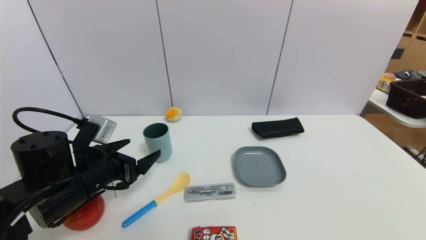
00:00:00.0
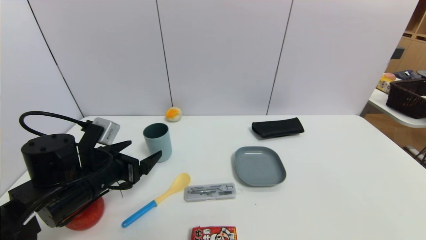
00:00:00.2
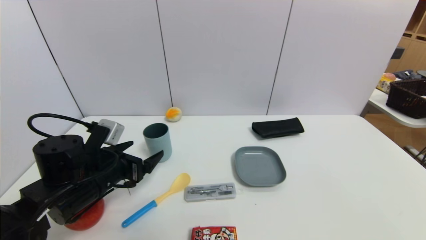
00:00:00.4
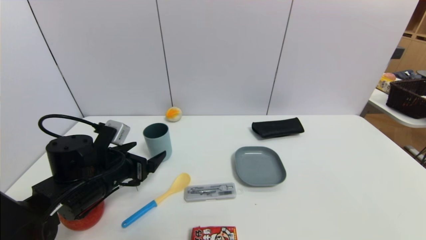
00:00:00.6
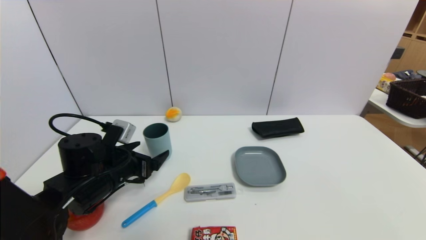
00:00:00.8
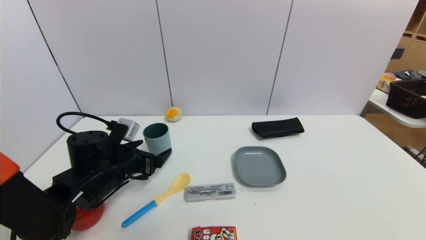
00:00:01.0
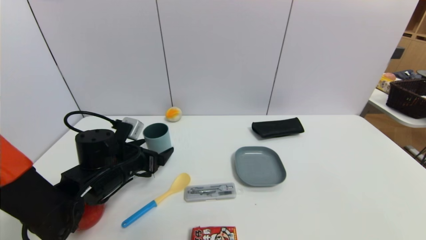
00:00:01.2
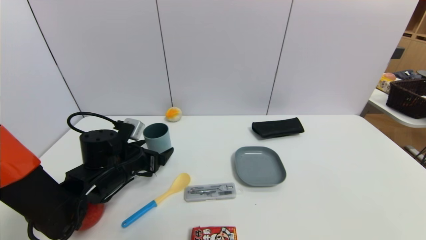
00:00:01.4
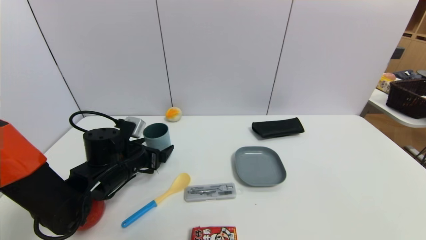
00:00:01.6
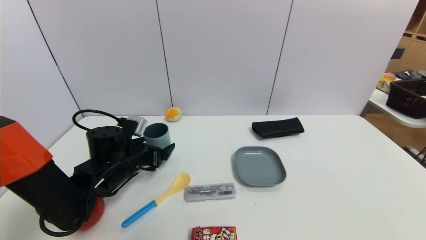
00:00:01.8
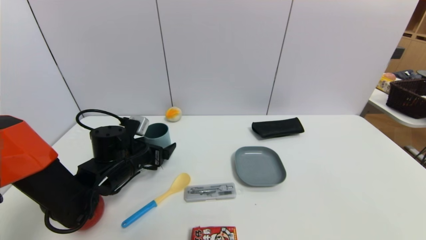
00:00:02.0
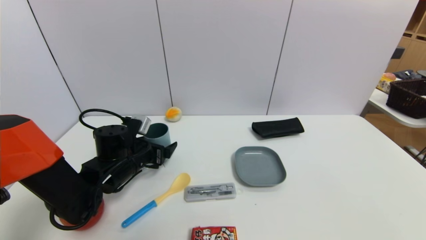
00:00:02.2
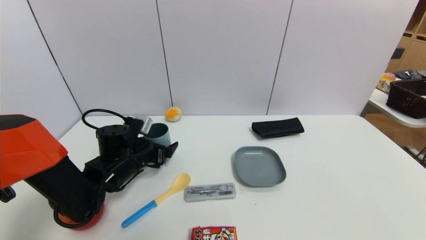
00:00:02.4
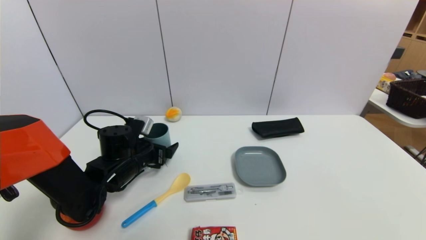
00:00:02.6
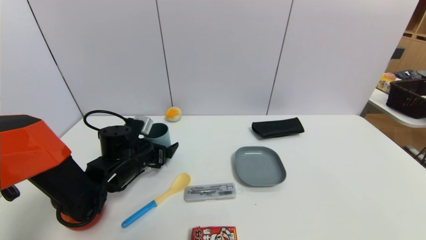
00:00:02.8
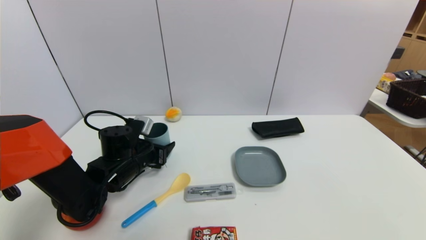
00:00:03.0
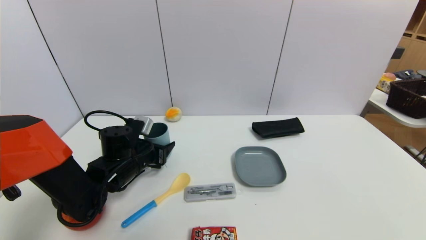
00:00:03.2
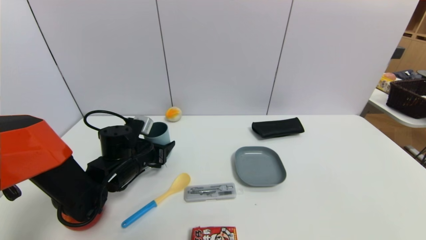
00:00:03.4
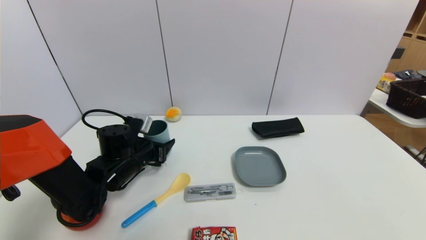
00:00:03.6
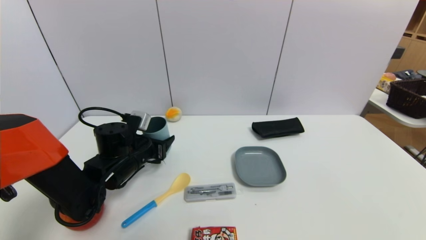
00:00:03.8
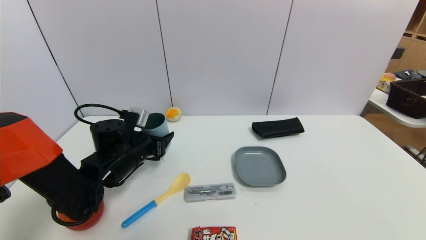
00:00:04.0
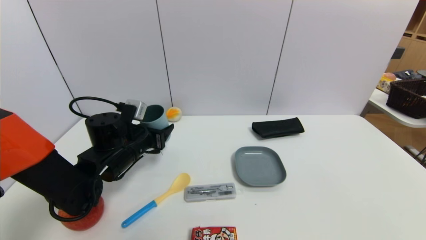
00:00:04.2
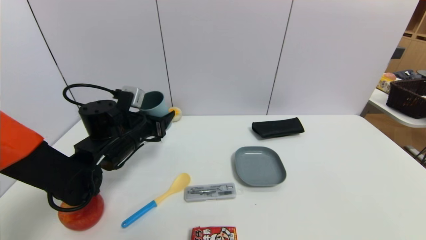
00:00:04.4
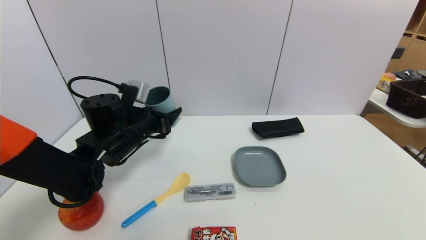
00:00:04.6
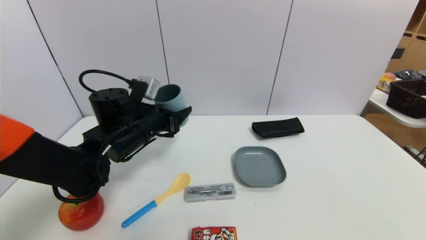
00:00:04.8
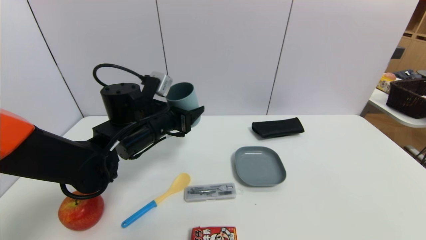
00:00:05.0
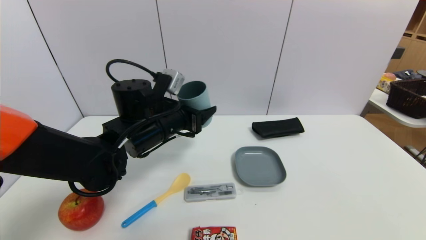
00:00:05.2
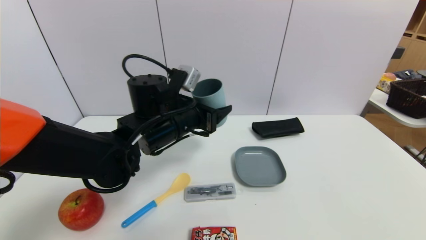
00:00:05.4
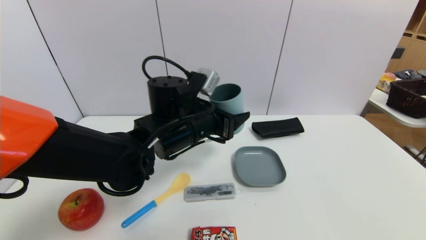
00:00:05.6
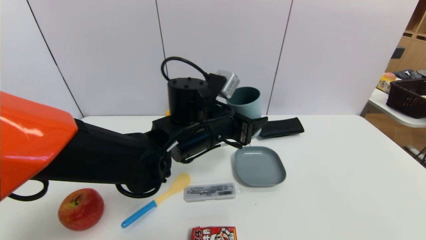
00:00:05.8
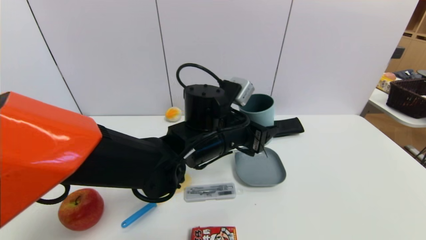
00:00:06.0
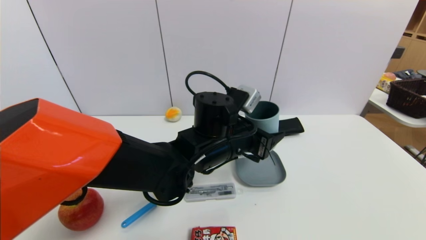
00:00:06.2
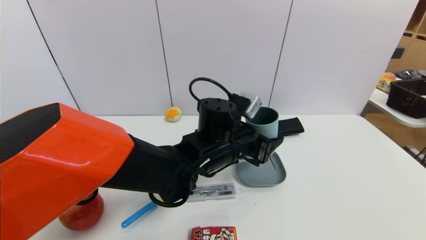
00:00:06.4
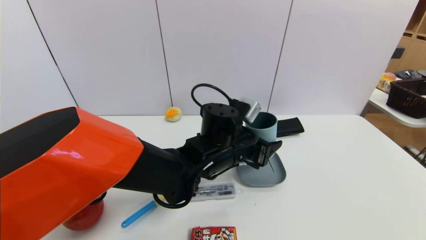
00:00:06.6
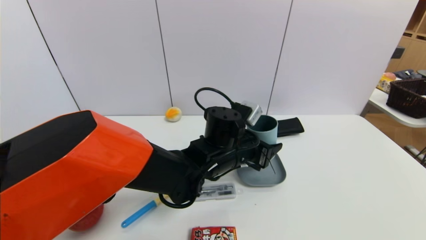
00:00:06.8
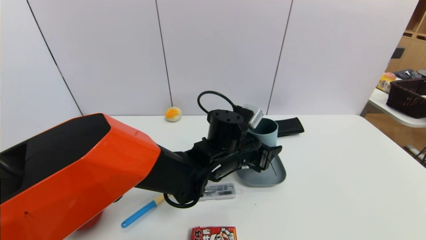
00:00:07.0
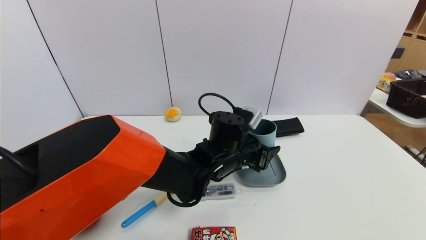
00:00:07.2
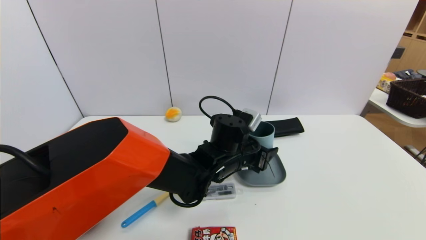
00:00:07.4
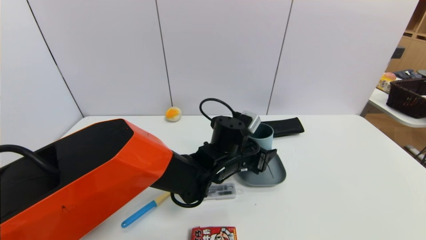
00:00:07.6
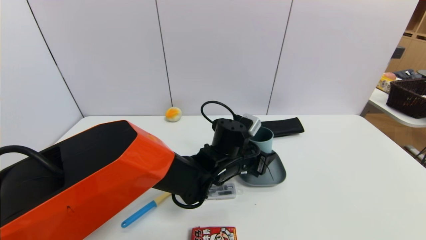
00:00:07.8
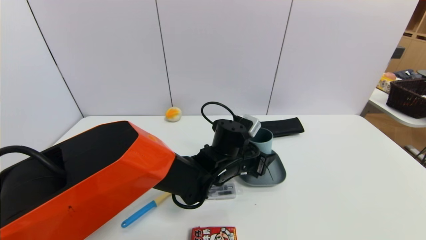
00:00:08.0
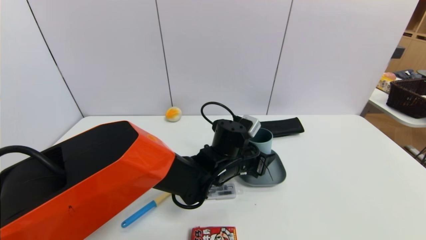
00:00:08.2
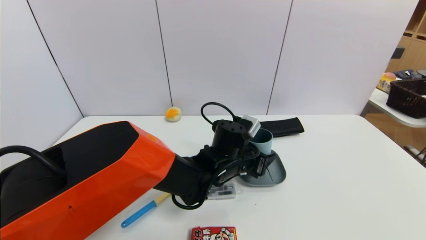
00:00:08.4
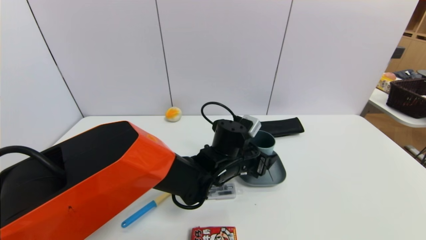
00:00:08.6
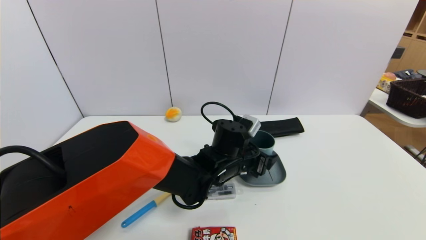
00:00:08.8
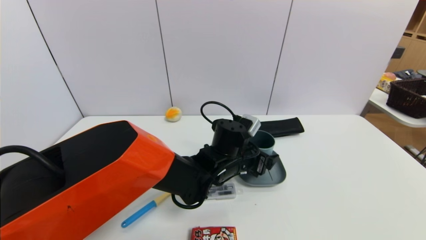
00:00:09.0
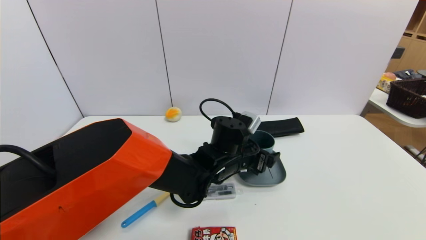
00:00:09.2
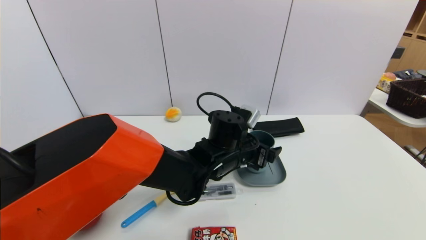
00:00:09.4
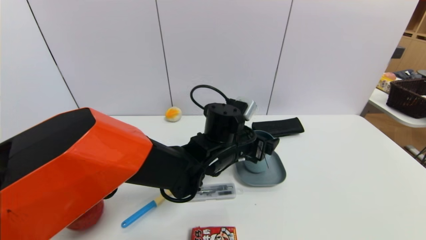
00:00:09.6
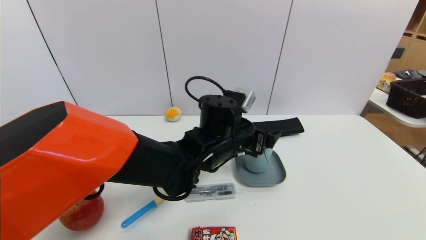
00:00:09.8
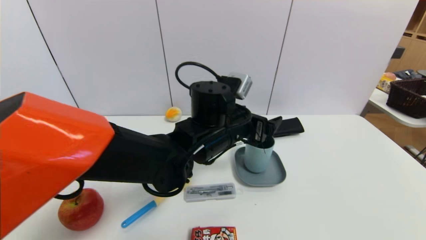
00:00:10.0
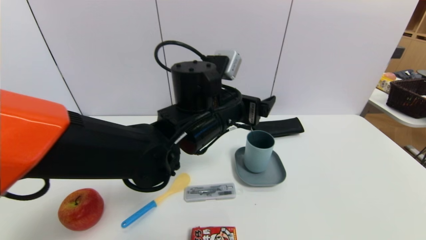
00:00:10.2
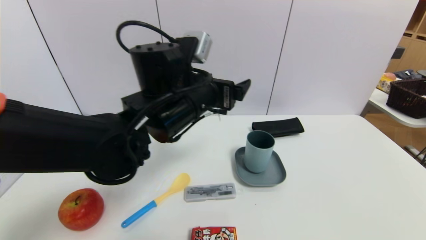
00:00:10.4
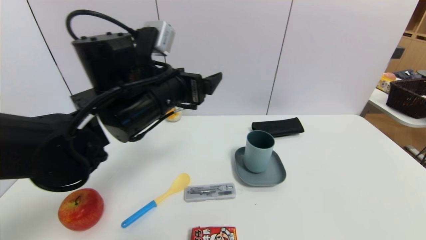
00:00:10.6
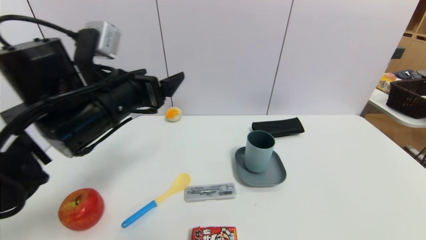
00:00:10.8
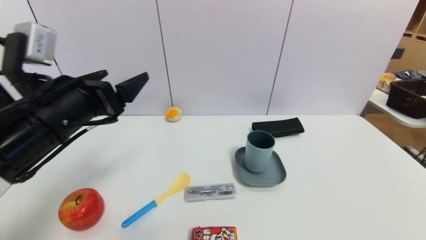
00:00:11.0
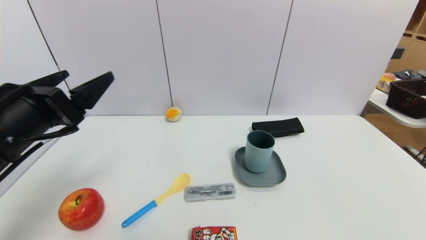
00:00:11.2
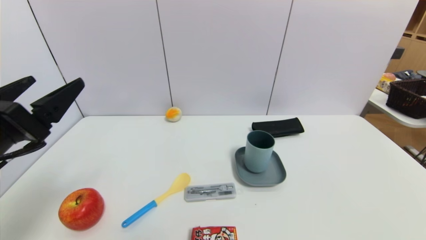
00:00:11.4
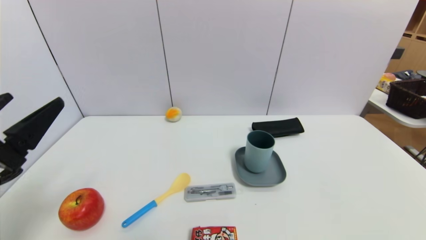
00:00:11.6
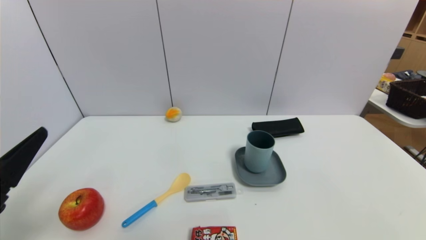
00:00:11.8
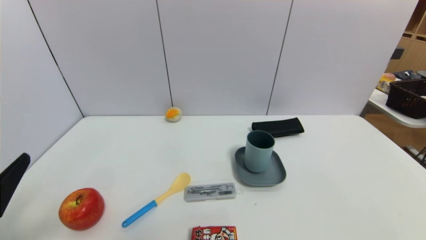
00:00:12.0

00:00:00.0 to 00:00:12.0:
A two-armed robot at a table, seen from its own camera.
Task of the whole recording: use a gripper to pick the target object and place on the dish.
Step, 00:00:00.0 to 00:00:03.2: Grasp the blue cup with the left gripper.
Step, 00:00:03.4 to 00:00:09.8: Place the blue cup on the dish with the left gripper.
00:00:00.0 to 00:00:01.6: The left gripper shifts about 5 cm forward.
00:00:01.6 to 00:00:03.0: The left gripper closes its fingers.
00:00:03.0 to 00:00:04.4: The left gripper goes approximately 5 cm upward.
00:00:04.4 to 00:00:06.0: The left gripper goes some 20 cm to the right.
00:00:06.0 to 00:00:07.6: The left gripper goes roughly 10 cm downward.
00:00:07.6 to 00:00:09.0: The left gripper opens.
00:00:09.0 to 00:00:10.4: The left gripper shifts about 20 cm upward and to the left.
00:00:10.4 to 00:00:12.0: The left gripper shifts about 35 cm to the left and backward.

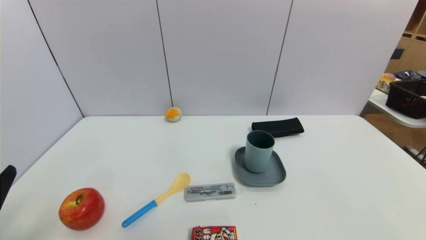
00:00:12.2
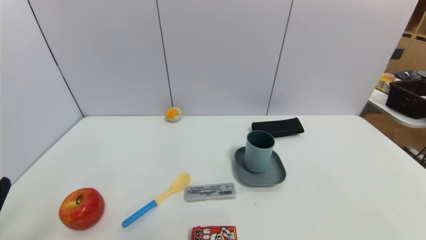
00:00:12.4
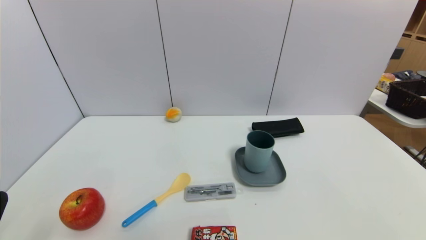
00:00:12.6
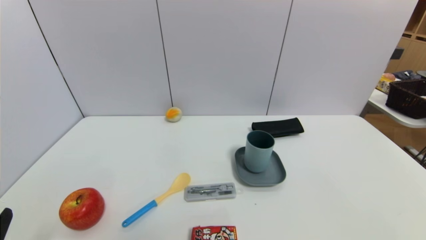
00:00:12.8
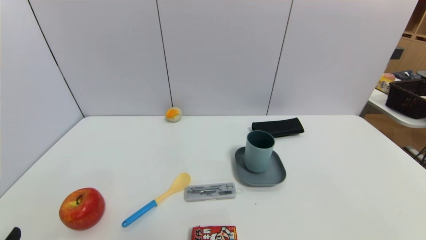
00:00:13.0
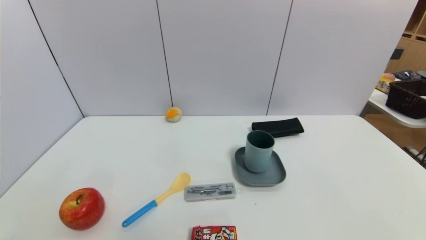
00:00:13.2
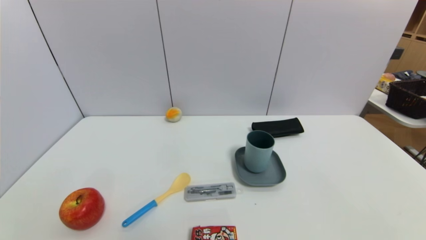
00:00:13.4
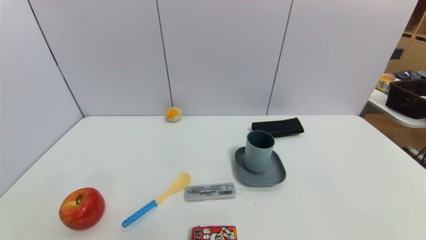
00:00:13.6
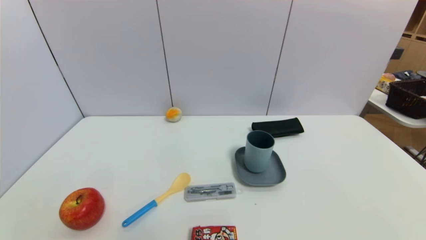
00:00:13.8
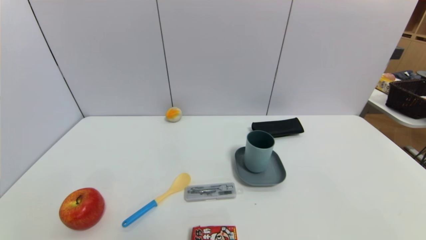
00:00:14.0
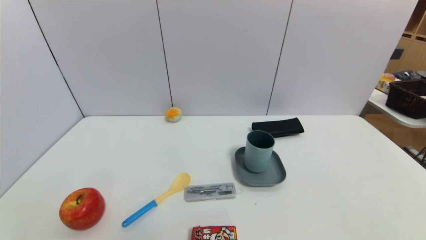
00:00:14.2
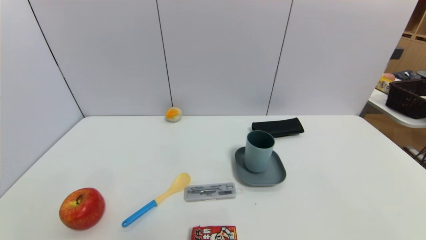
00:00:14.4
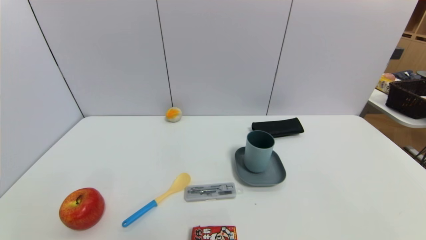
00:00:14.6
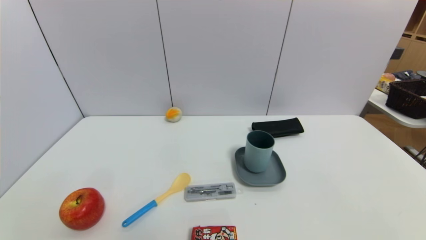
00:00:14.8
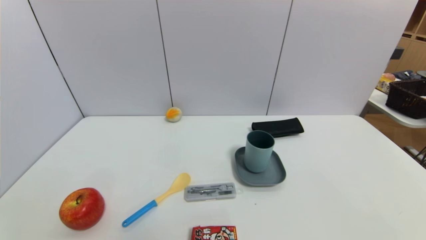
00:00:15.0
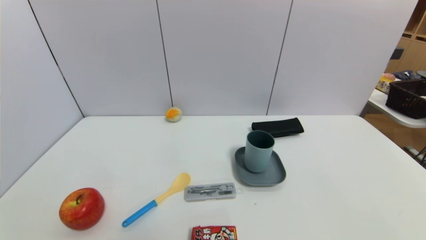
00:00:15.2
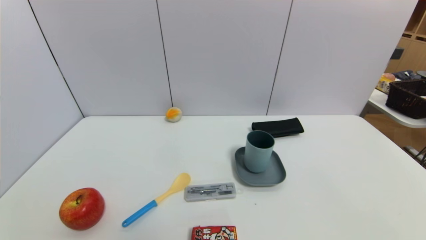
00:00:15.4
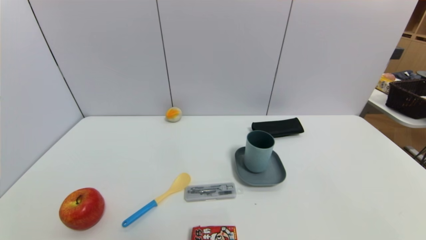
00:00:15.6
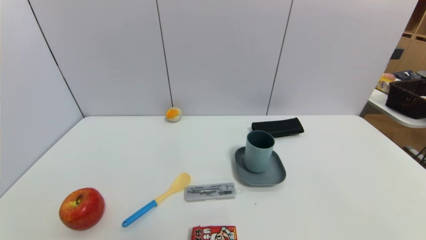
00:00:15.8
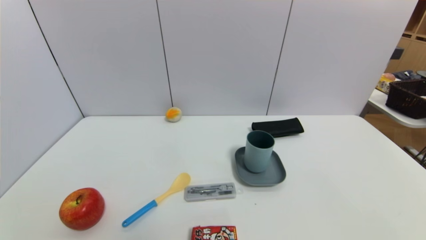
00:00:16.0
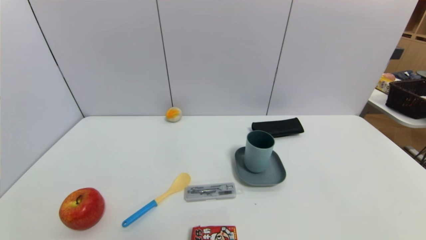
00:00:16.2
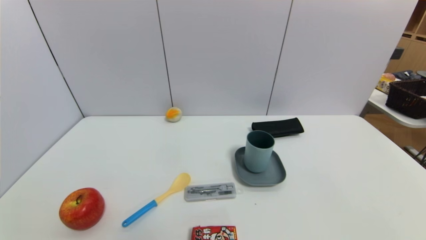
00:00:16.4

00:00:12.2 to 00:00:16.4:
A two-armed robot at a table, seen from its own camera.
Task of the whole recording: use a gripper to pick the target object and place on the dish.
00:00:12.2 to 00:00:13.6: The left gripper travels downward and backward by some 10 cm.
00:00:13.6 to 00:00:16.4: Both grippers stay about where they are.
